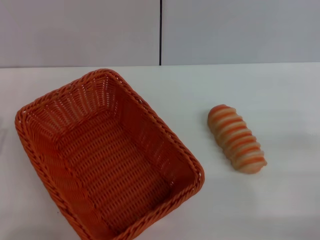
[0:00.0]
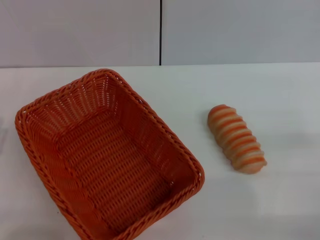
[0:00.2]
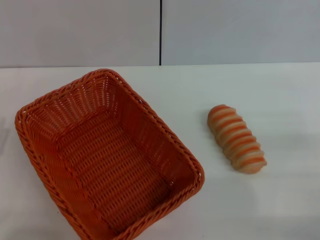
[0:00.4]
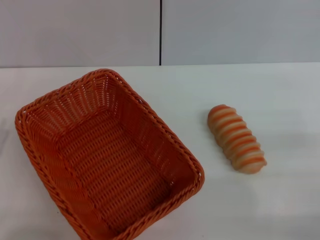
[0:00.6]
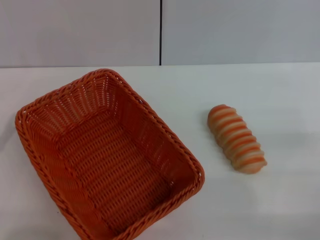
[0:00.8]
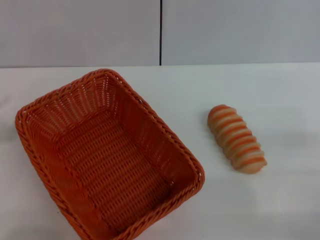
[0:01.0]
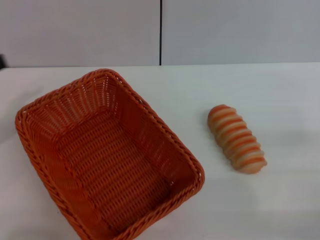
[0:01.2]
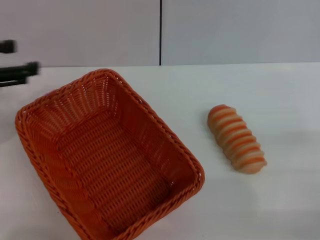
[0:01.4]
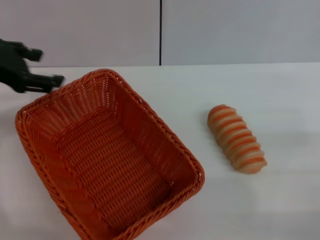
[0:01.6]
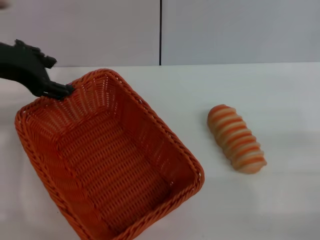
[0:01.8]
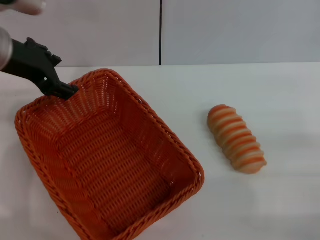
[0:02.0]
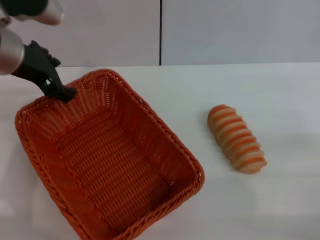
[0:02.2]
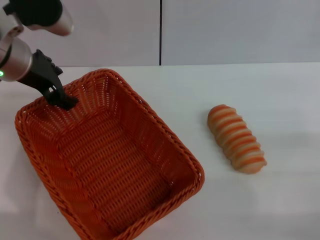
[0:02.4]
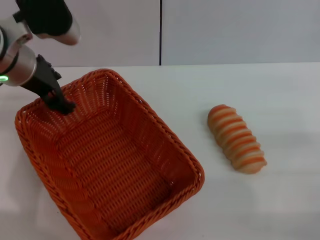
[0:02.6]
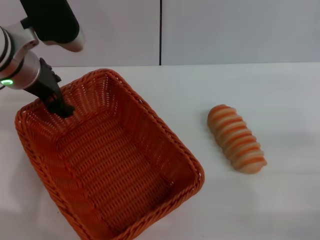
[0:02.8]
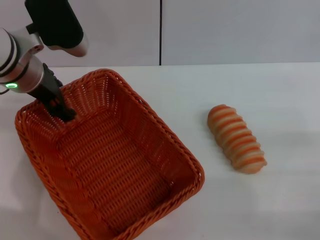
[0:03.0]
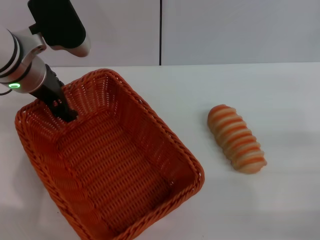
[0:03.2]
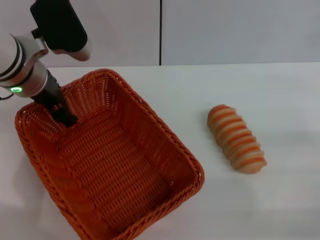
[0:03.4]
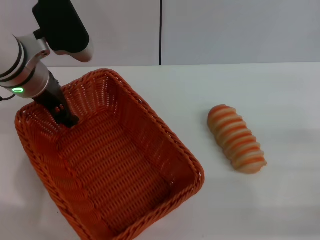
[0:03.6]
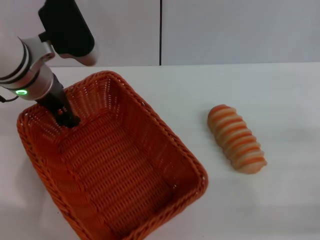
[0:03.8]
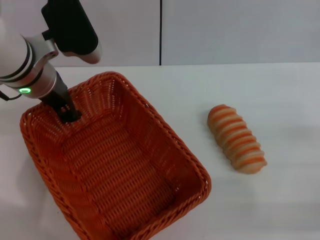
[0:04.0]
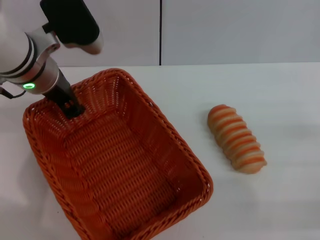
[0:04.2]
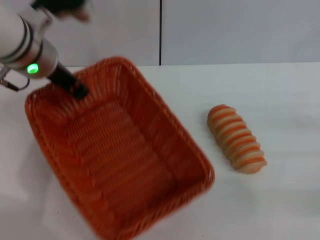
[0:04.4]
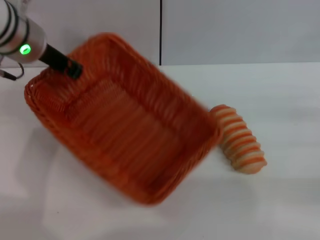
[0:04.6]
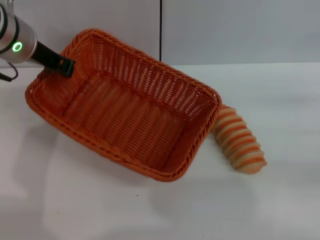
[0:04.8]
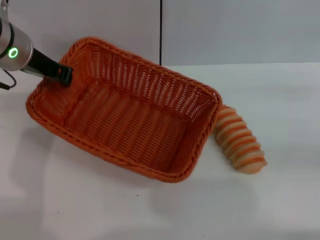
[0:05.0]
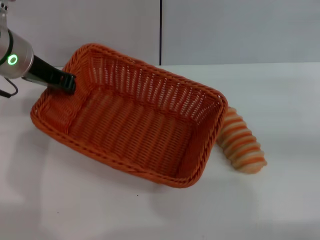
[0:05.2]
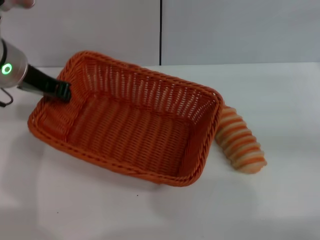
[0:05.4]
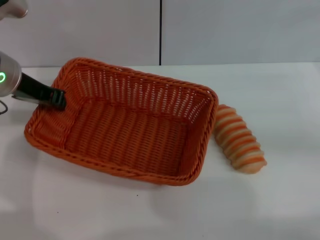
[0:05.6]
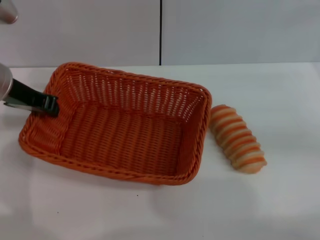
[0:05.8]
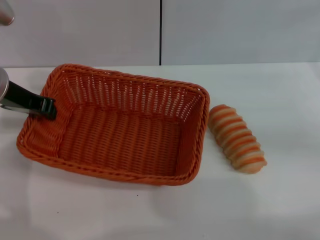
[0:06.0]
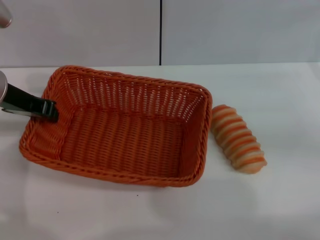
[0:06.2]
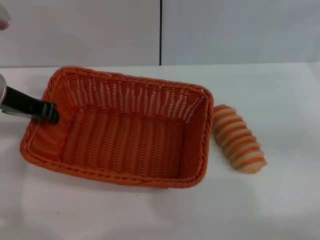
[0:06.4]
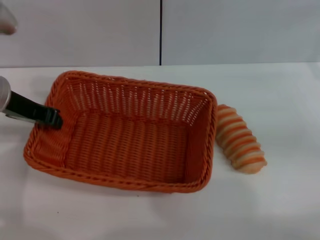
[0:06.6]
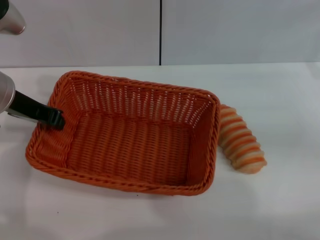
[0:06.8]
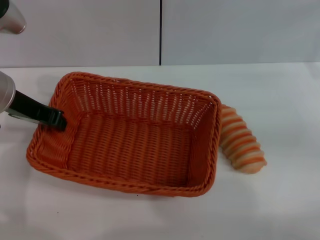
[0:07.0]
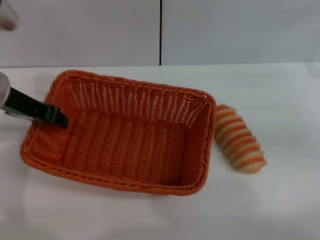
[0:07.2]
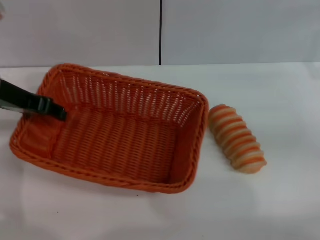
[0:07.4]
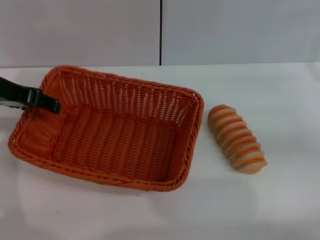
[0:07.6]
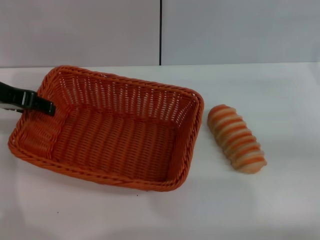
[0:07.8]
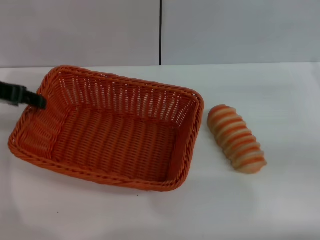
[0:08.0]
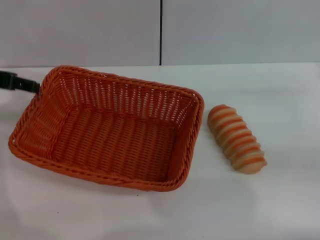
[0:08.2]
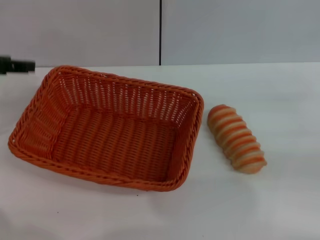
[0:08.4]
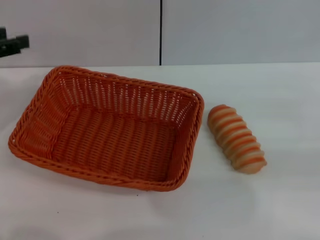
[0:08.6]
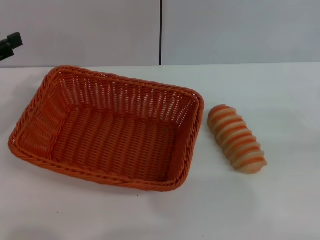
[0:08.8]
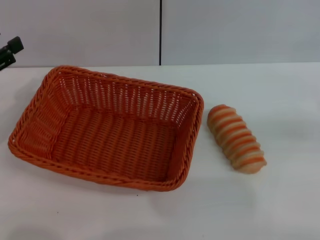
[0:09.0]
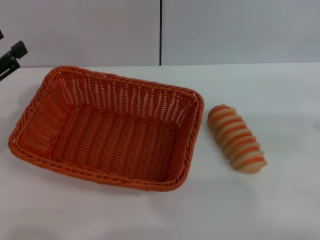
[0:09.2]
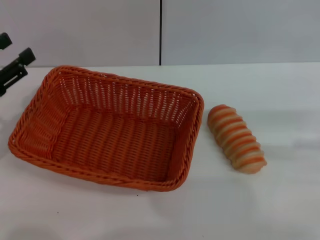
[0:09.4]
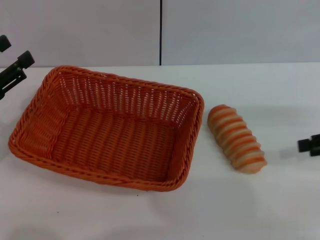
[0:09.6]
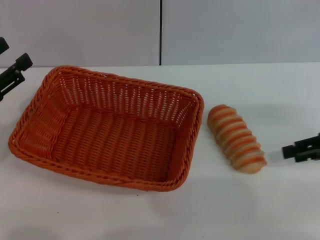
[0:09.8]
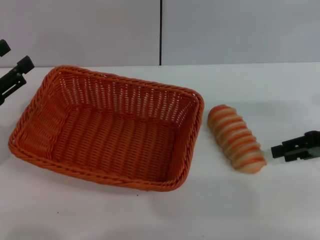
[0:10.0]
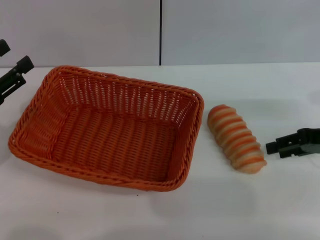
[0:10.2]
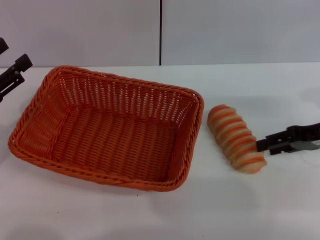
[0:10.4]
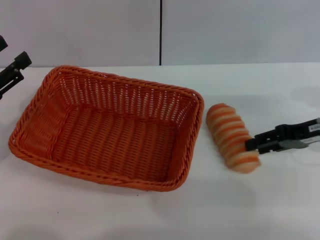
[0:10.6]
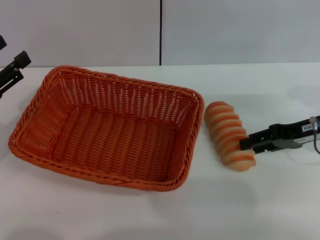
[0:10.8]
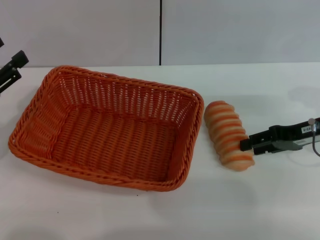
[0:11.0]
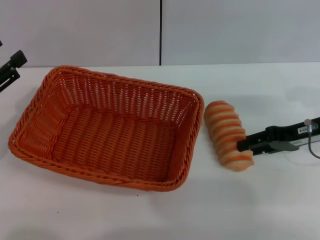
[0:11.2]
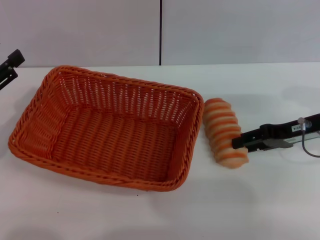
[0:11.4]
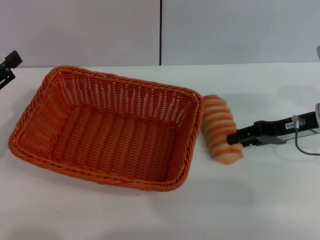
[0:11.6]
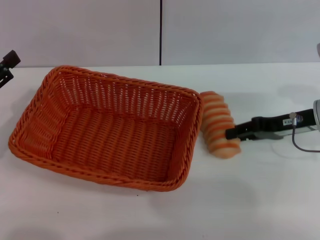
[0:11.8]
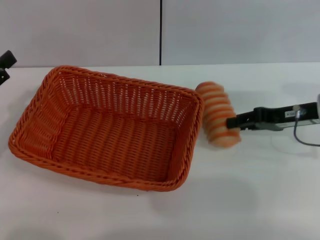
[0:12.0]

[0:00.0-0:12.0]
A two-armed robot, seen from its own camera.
Step, 0:00.0 to 0:04.6: Pick up the light basket with the left gripper.
Step, 0:04.8 to 0:08.2: Place the light basket in the center of view with the left gripper.
0:00.0 to 0:01.6: The left gripper moves upward and forward, some 25 cm.
0:01.6 to 0:03.0: The left gripper moves to the right, roughly 10 cm.
0:03.0 to 0:04.4: The right gripper ends up some 5 cm from where it was. Meanwhile the left gripper closes its fingers.
0:04.4 to 0:06.0: The left gripper travels to the left by about 5 cm. Meanwhile the right gripper is displaced forward by roughly 10 cm.
0:06.0 to 0:07.6: The left gripper opens its fingers.
0:07.6 to 0:09.0: The left gripper shifts roughly 15 cm to the left, downward and backward.
0:09.0 to 0:10.4: The right gripper shifts approximately 15 cm to the left, forward and downward.
0:10.4 to 0:12.0: The grippers stay close to where they were, moving slightly.

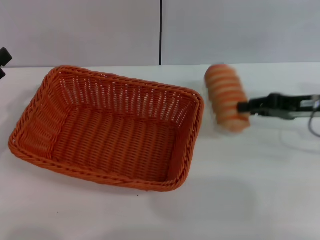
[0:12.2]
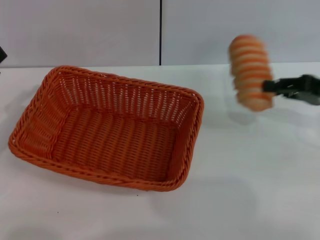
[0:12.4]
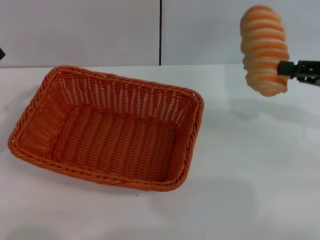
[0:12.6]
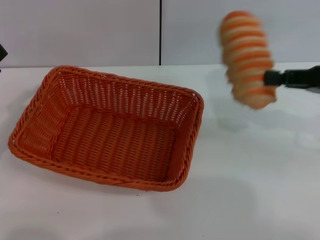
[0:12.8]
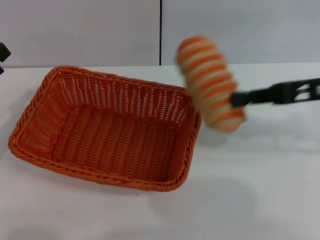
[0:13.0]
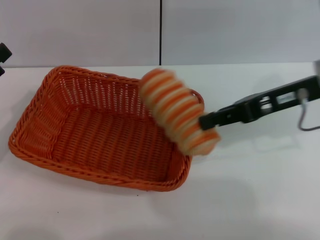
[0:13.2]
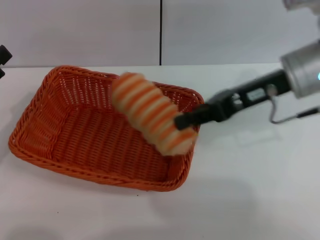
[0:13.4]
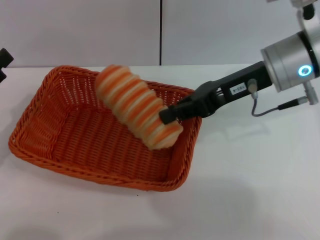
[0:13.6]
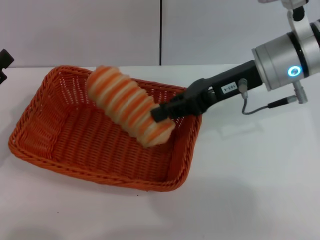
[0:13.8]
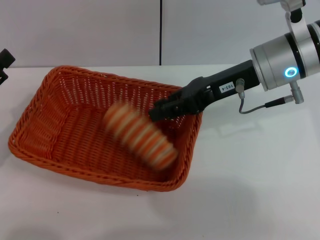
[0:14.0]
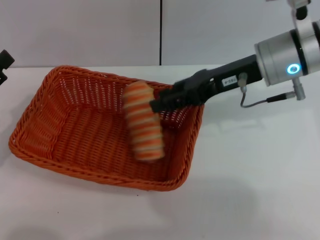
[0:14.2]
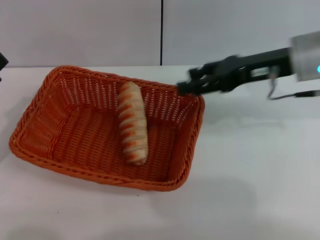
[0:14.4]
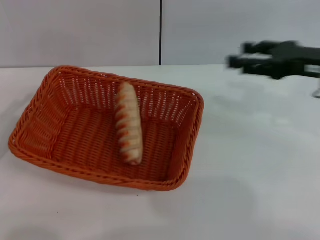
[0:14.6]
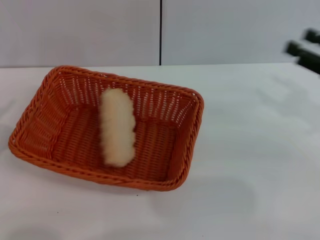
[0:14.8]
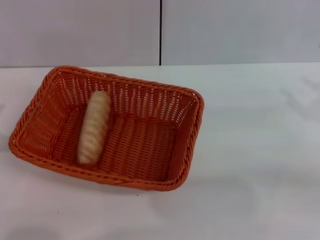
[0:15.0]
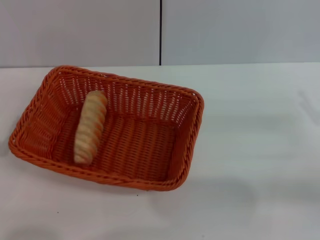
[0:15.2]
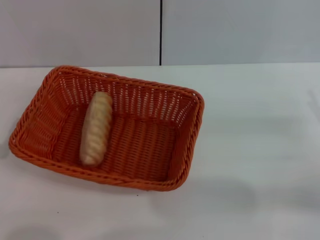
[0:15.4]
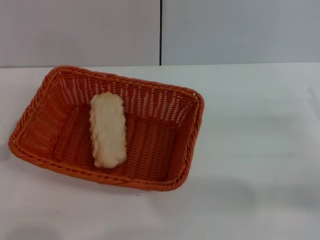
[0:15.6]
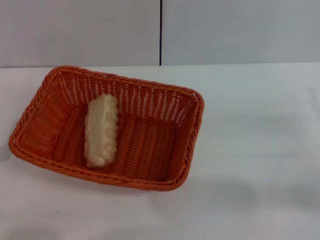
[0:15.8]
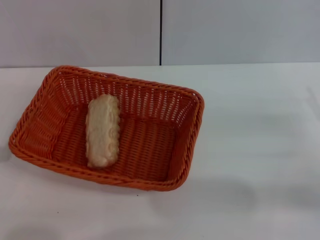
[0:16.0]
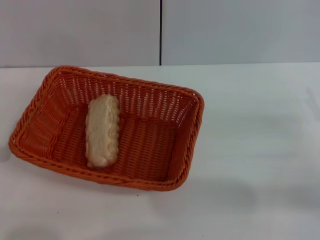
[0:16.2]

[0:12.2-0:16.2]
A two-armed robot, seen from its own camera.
Step, 0:12.6 to 0:14.2: Place the long bread into the light basket with the right gripper.
0:12.2 to 0:13.6: The right gripper moves to the left and upward, approximately 15 cm.
0:13.6 to 0:14.8: The right gripper goes some 20 cm to the right and backward, and opens.
0:14.8 to 0:16.2: The right gripper goes approximately 10 cm downward and backward.
